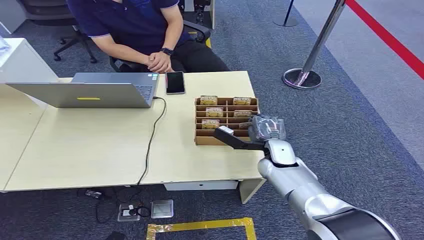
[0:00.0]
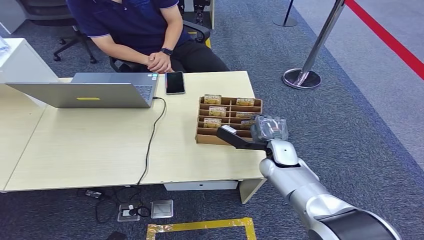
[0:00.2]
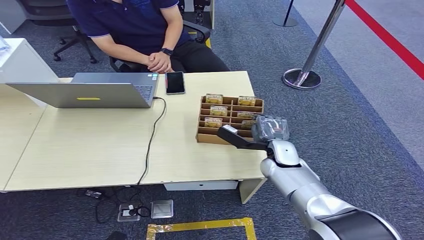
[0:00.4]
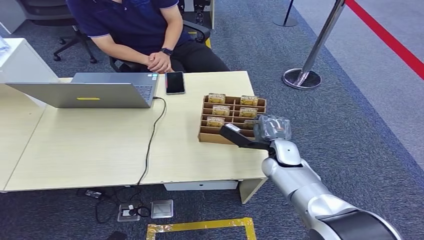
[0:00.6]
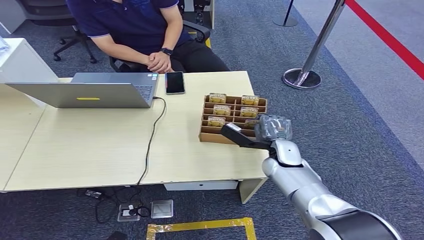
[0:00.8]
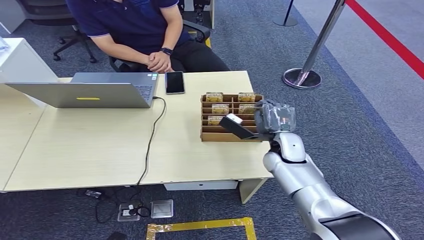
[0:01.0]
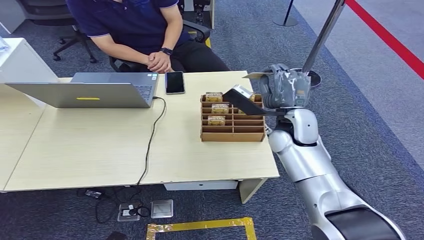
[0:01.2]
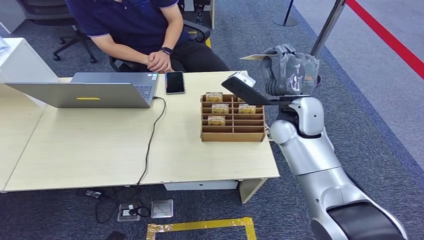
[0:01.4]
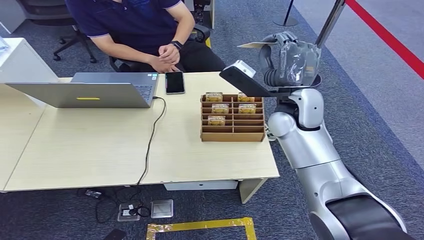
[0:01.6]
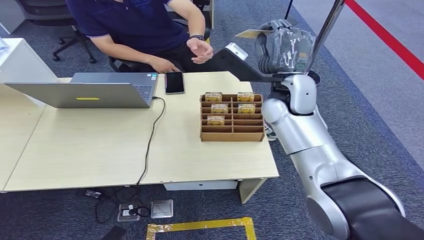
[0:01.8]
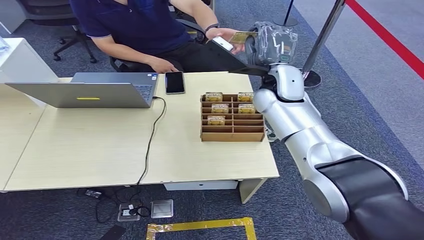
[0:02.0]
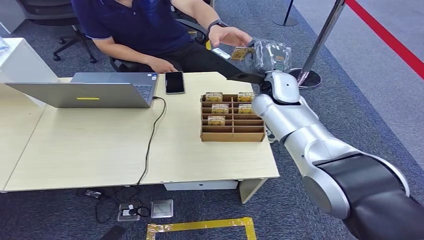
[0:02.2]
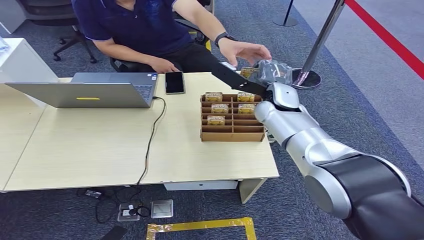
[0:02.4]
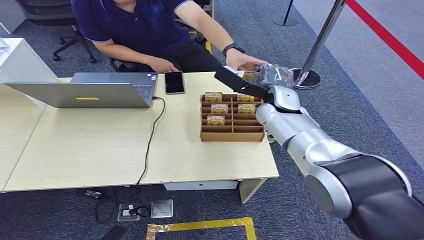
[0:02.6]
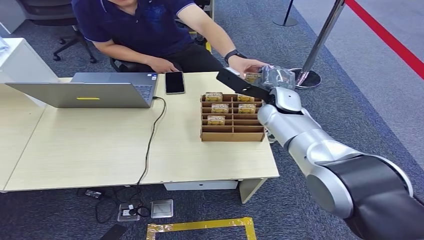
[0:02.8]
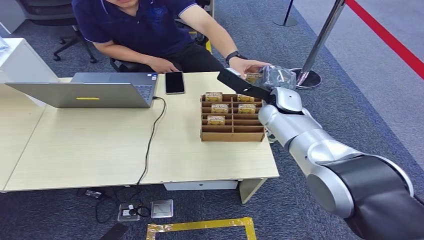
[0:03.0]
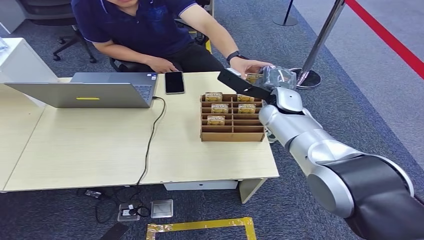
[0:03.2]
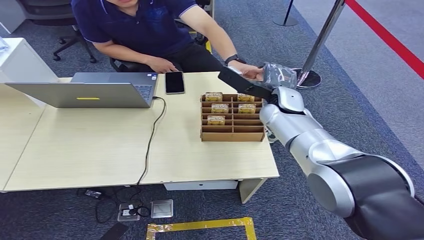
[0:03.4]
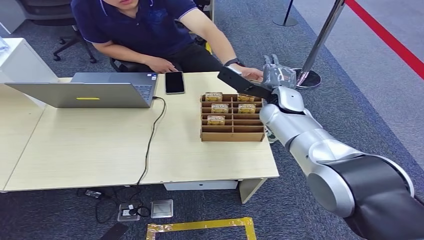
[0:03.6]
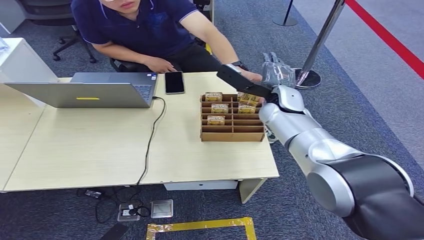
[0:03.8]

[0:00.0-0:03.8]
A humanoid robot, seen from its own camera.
Step, 0:00.0 to 0:01.6: Pick up the room card from the card holder.
Step, 0:02.0 to 0:03.8: Hand the room card to the target.
0:01.2 to 0:02.6: The right hand shifts some 5 cm forward, and travels upward and back again, about 10 cm each way.
0:02.6 to 0:03.8: Both hands stay about where they are.
